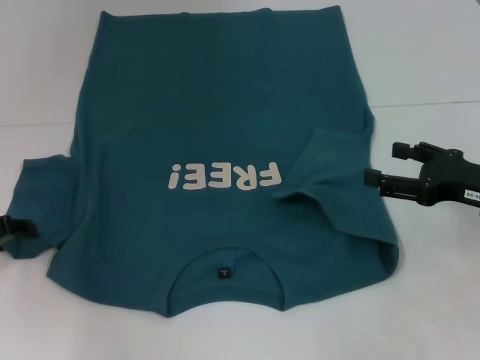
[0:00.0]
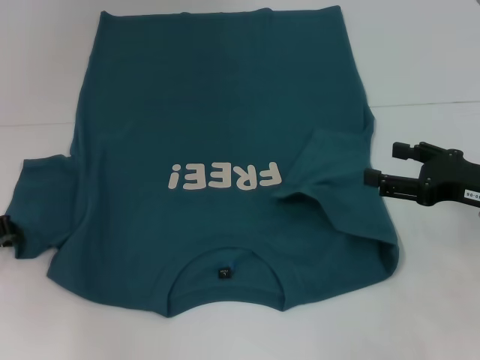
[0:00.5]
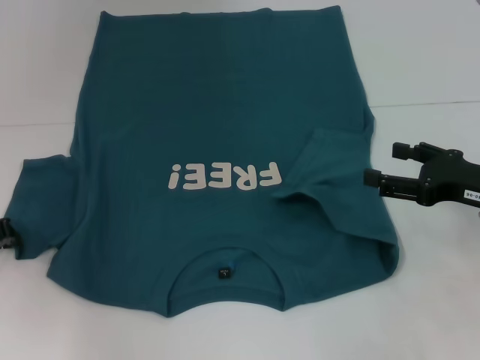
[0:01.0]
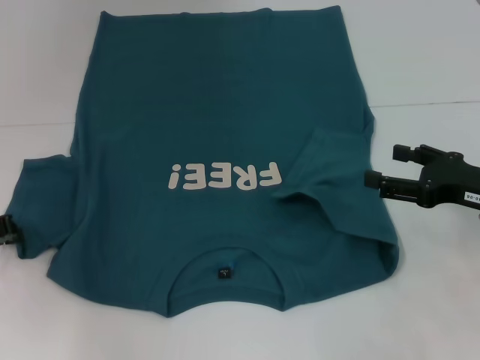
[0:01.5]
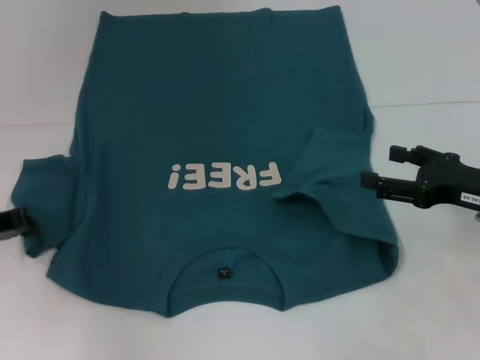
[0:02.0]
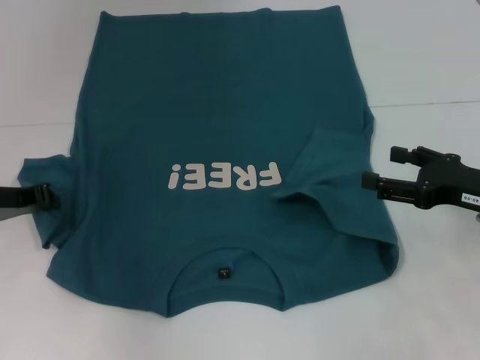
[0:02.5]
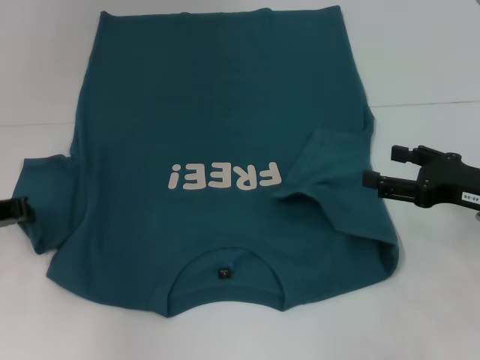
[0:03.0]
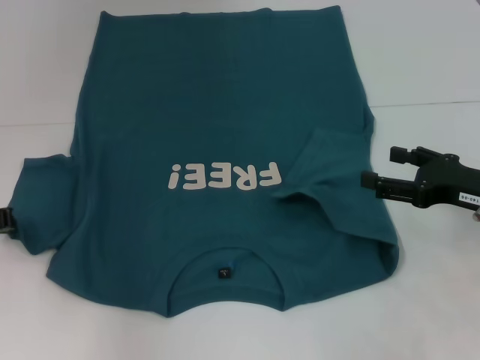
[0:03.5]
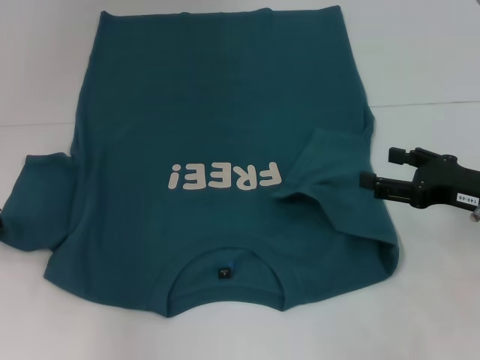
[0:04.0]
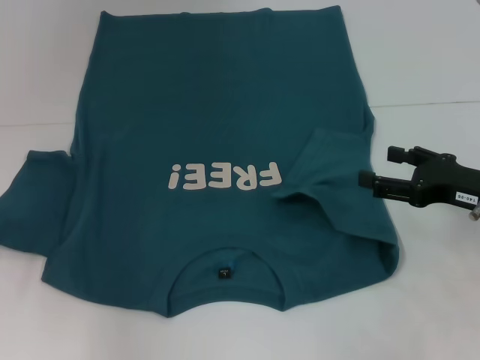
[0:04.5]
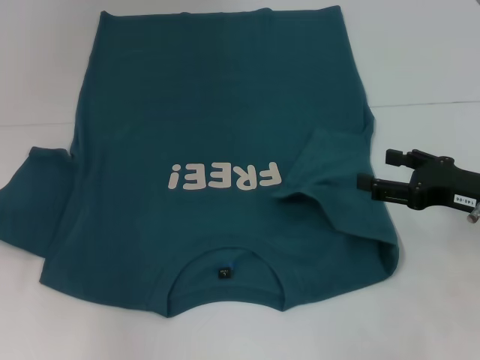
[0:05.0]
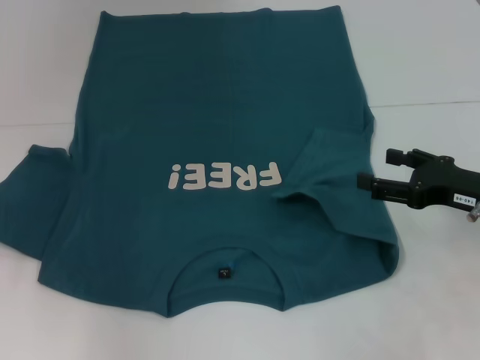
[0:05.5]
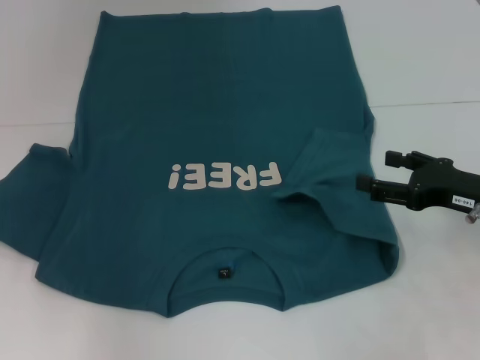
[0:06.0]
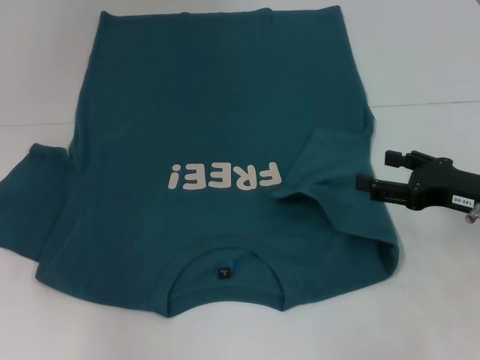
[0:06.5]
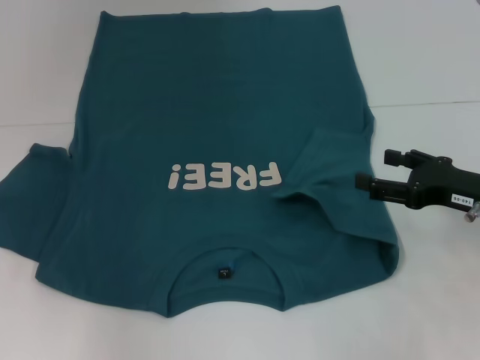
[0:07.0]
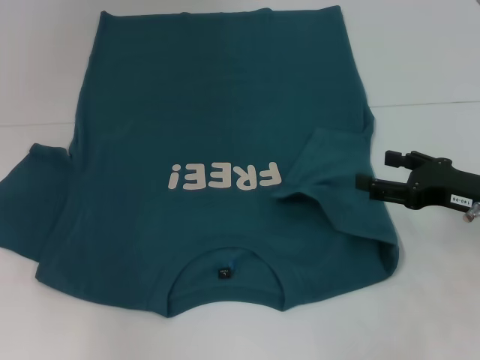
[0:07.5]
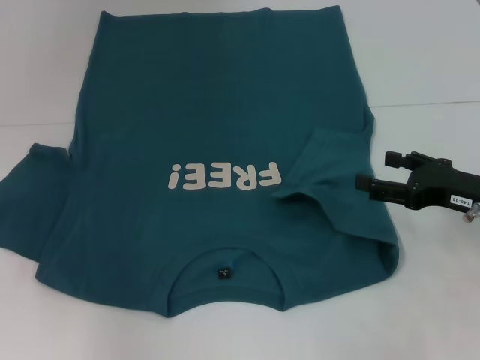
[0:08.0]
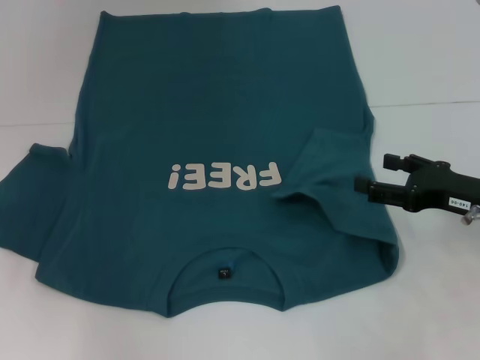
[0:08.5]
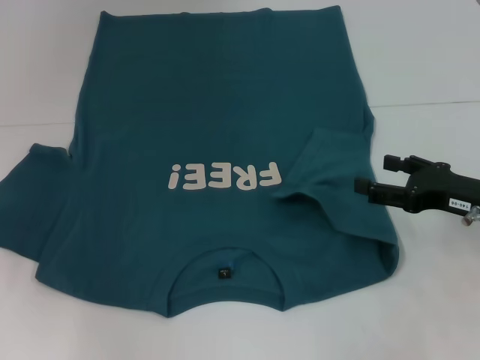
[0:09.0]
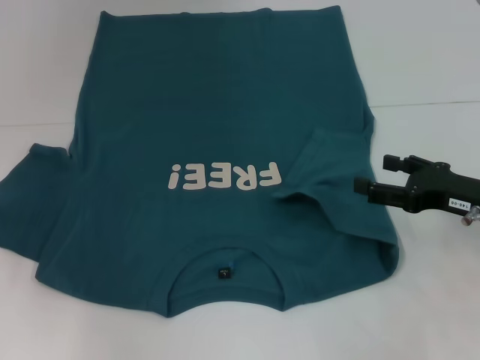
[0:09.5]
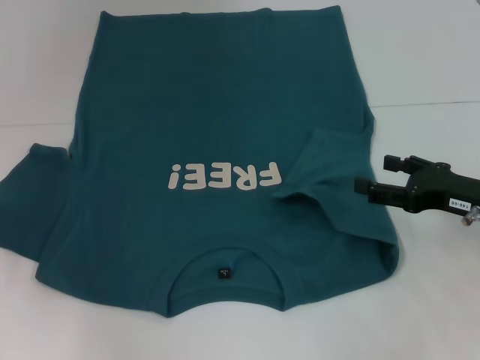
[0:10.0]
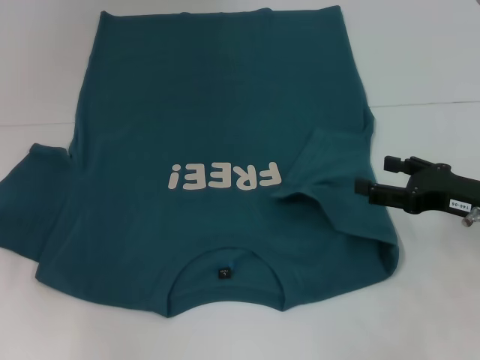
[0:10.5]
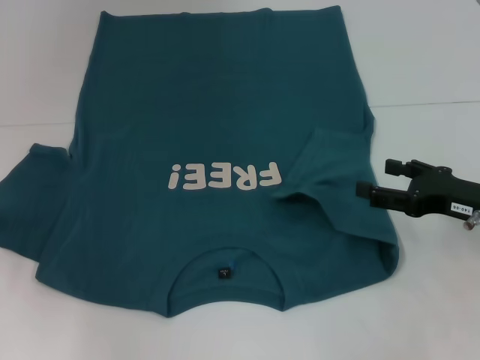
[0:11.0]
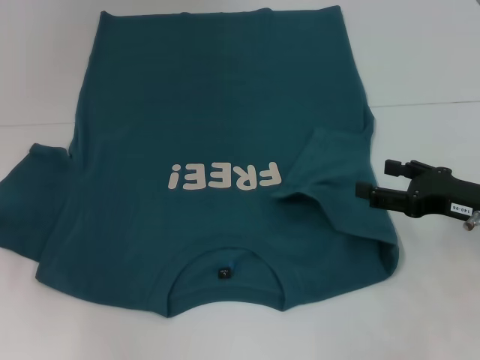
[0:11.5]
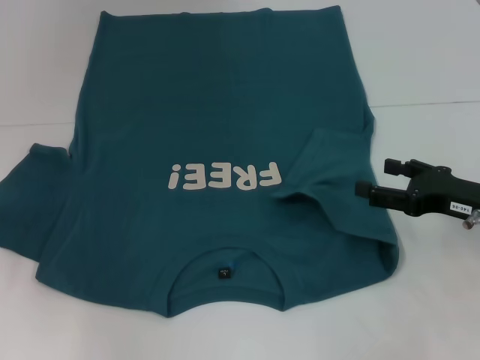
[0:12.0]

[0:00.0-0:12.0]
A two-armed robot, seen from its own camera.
0:00.0 to 0:02.0: The left gripper closes up.
0:02.0 to 0:04.0: The grippers make only small movements.
0:04.0 to 0:06.0: There are only small adjustments of the grippers.
0:08.0 to 0:10.0: The grippers make only small movements.
0:10.0 to 0:12.0: The two grippers keep their place.

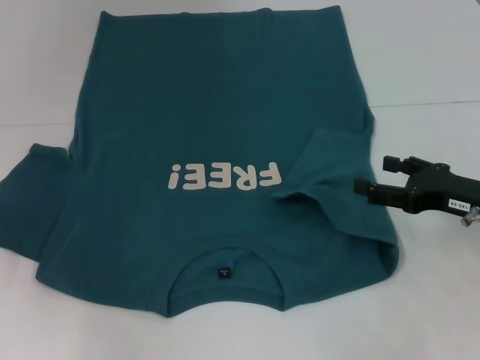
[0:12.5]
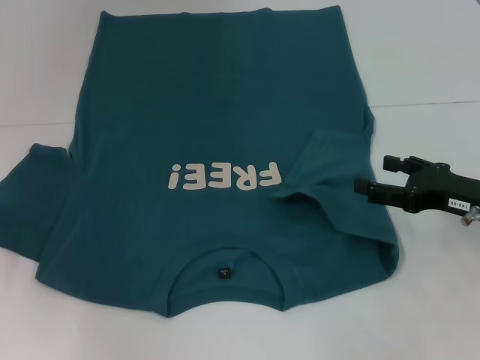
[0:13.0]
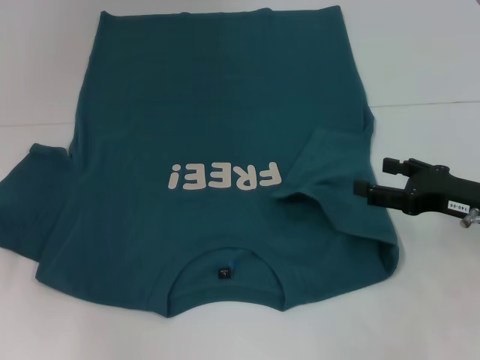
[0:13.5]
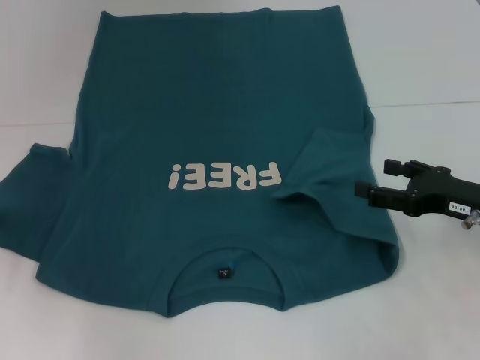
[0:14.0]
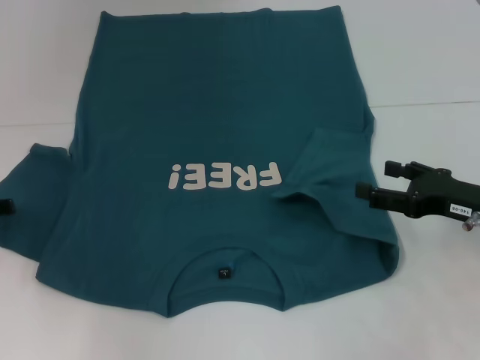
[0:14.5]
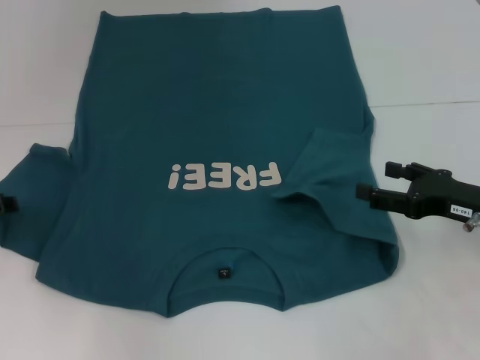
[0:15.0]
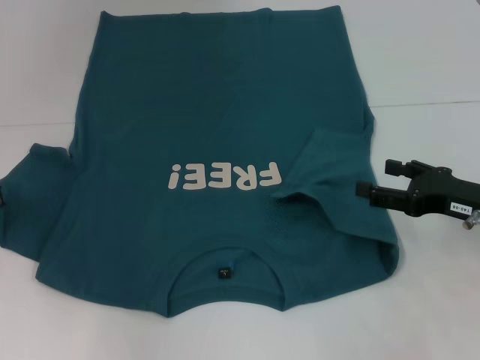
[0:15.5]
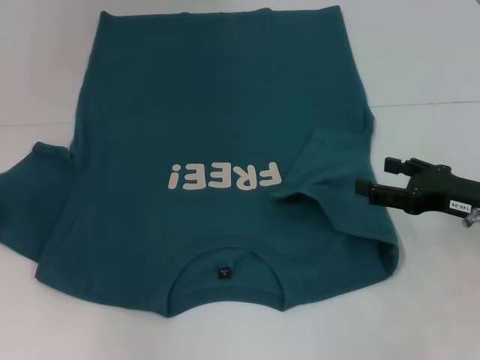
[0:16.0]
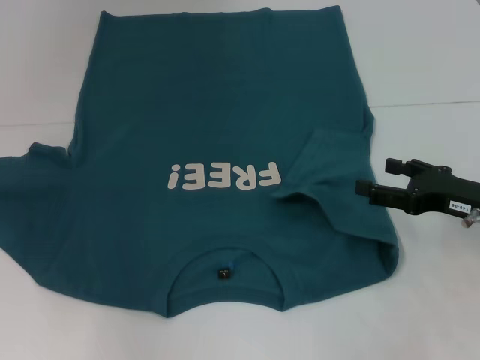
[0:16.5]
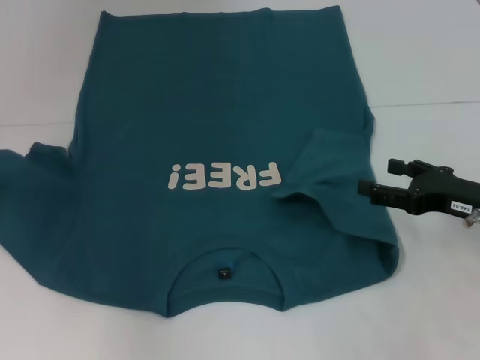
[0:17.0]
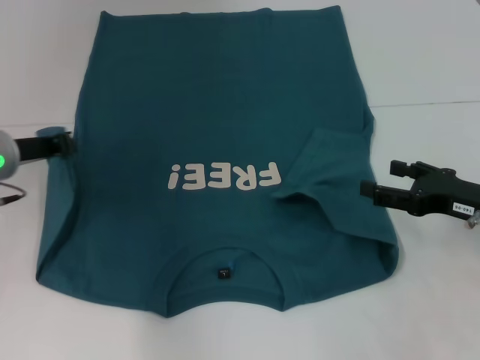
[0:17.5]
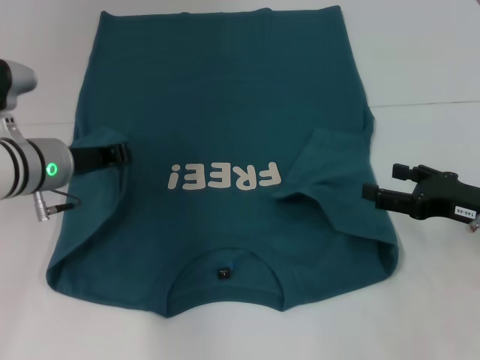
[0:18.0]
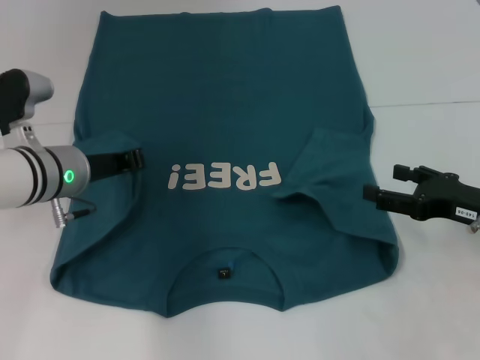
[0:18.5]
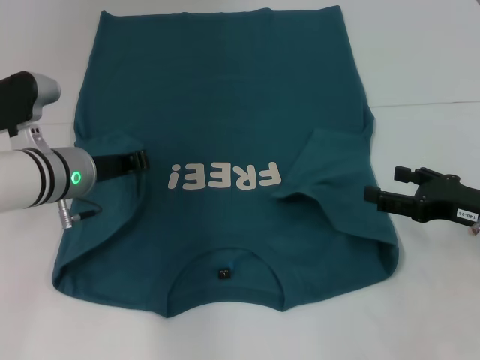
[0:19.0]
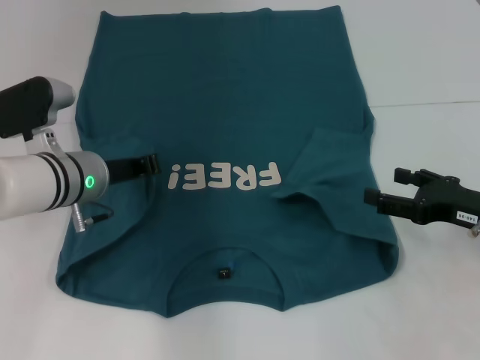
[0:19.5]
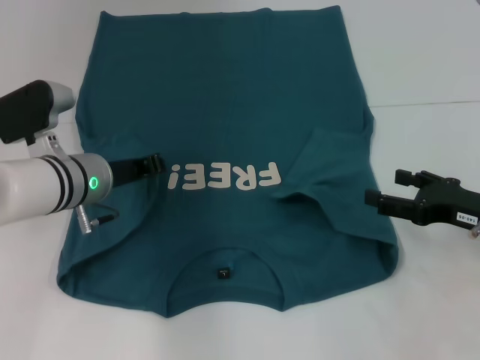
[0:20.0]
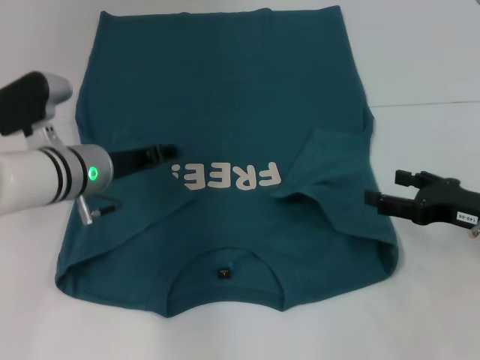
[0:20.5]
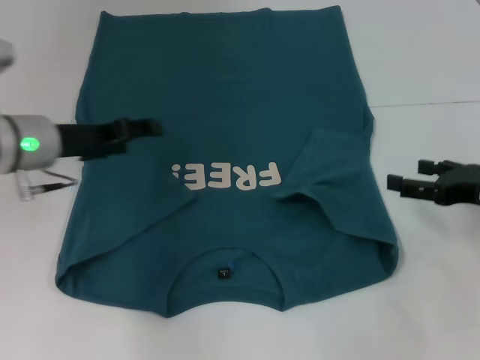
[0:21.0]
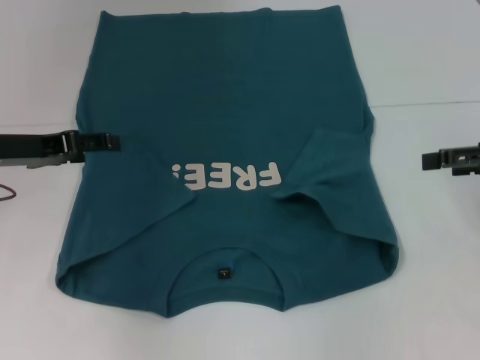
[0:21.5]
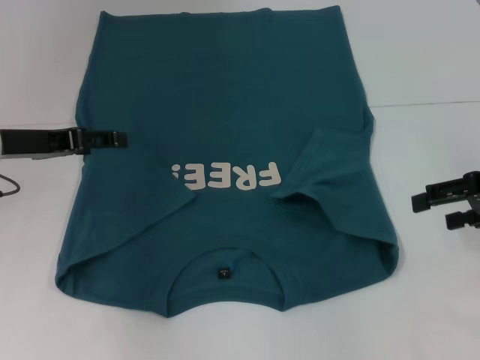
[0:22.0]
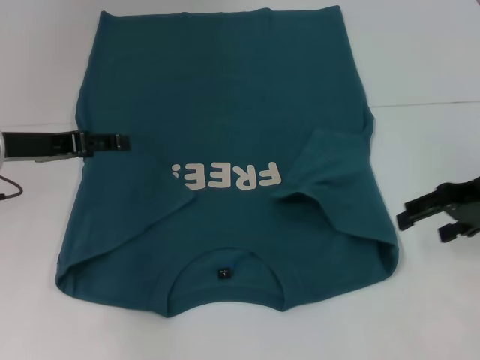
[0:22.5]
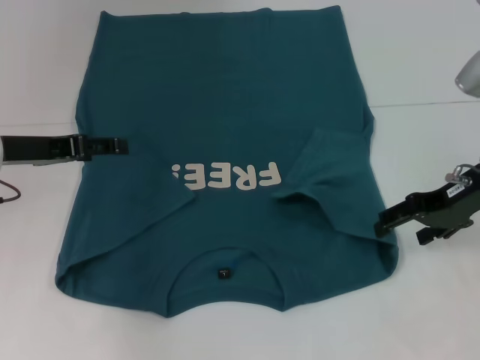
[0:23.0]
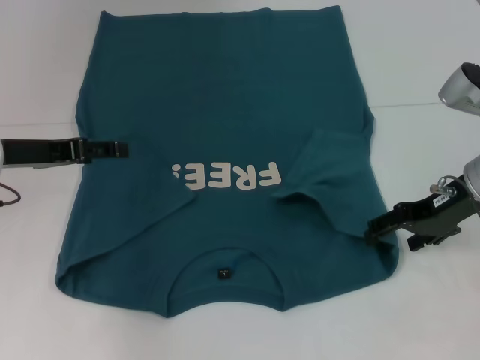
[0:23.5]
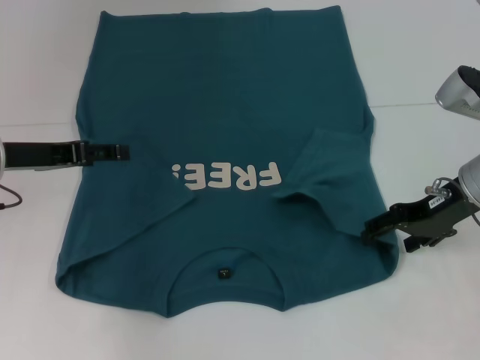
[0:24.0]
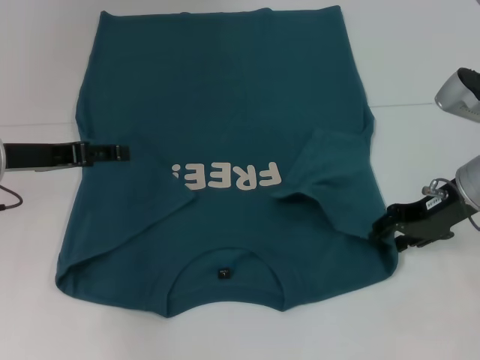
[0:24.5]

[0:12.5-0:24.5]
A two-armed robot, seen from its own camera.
Step, 0:12.5 to 0:20.0: Fold the bottom left sleeve with your left hand.
0:12.5 to 0:14.5: The grippers stay close to where they were, moving slightly.
0:14.5 to 0:16.5: The left gripper closes its fingers.
0:16.5 to 0:18.5: The left gripper is displaced to the right by approximately 15 cm.
0:18.5 to 0:20.5: The grippers stay close to where they were, moving slightly.
0:20.5 to 0:22.5: The right gripper goes about 10 cm upward and forward. The left gripper is displaced to the left and upward by some 10 cm, and opens.
0:22.5 to 0:24.5: The right gripper shifts by some 5 cm.

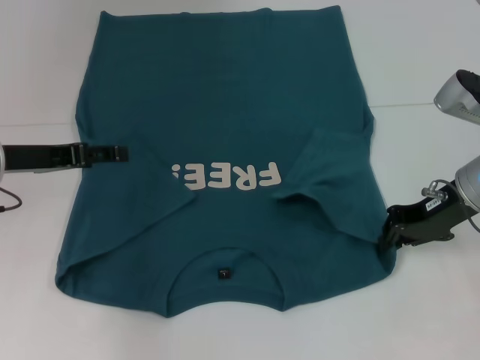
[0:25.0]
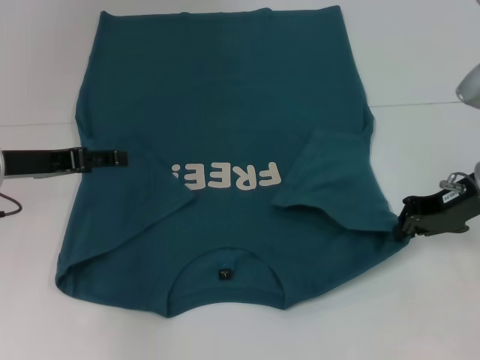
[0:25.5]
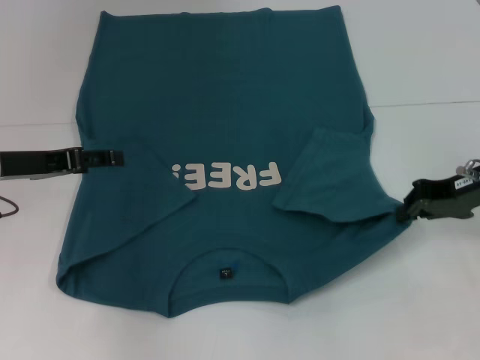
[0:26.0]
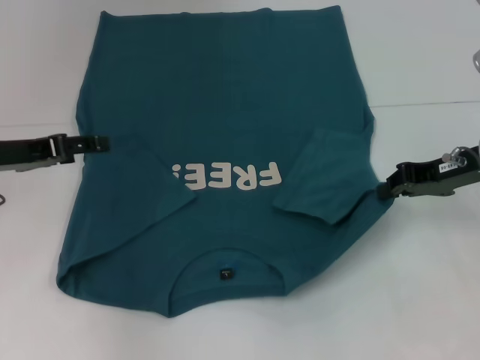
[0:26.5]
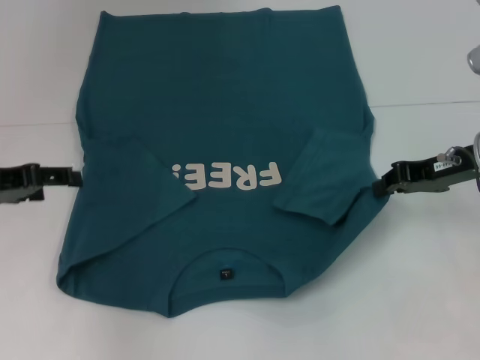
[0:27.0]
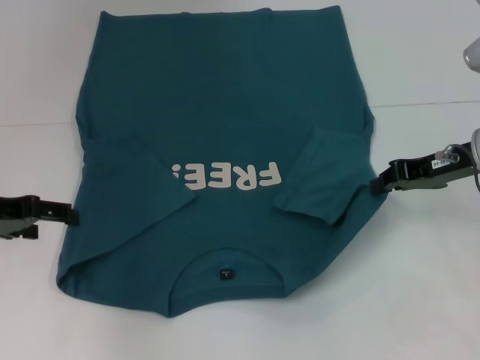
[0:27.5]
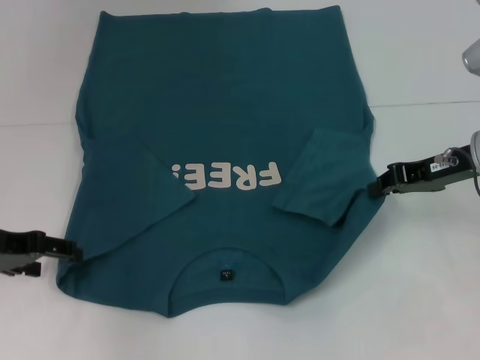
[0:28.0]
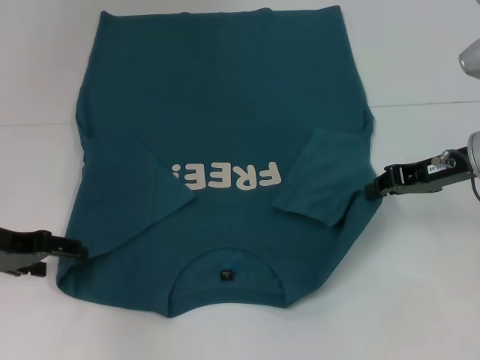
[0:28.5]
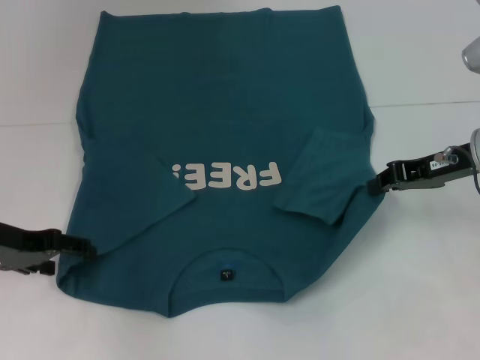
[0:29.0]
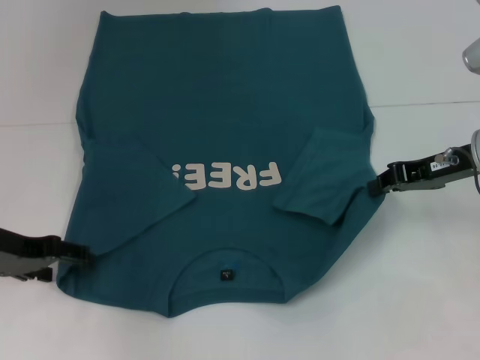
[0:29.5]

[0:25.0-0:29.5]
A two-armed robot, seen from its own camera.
0:25.0 to 0:27.0: The grippers move only a little.
0:27.0 to 0:29.5: The grippers make only small movements.
